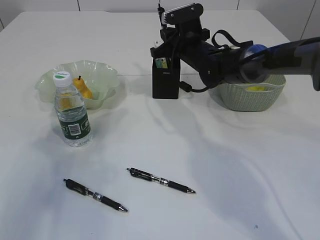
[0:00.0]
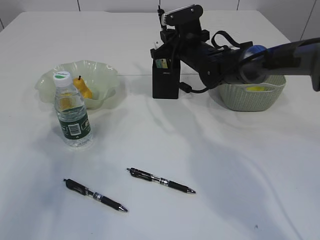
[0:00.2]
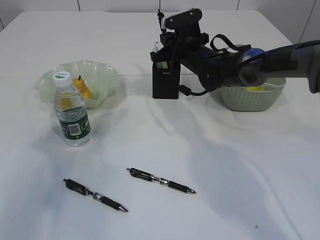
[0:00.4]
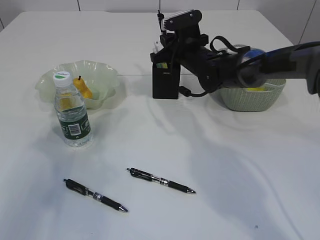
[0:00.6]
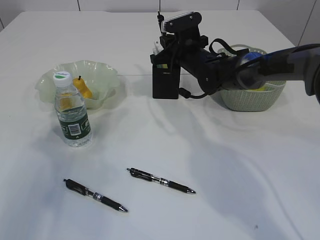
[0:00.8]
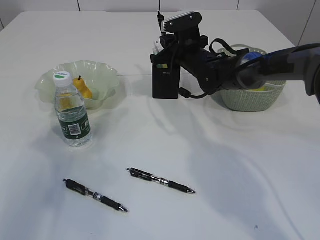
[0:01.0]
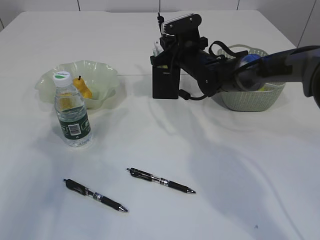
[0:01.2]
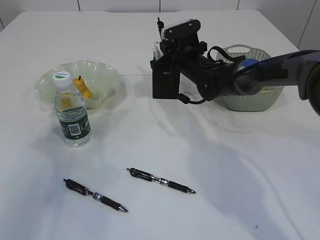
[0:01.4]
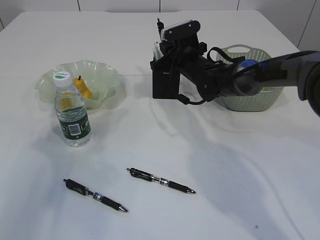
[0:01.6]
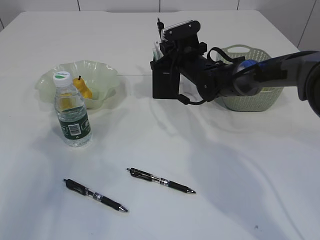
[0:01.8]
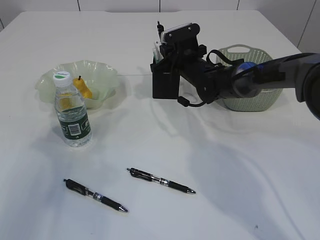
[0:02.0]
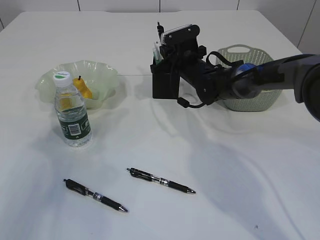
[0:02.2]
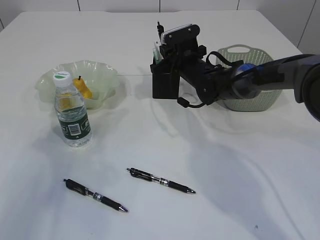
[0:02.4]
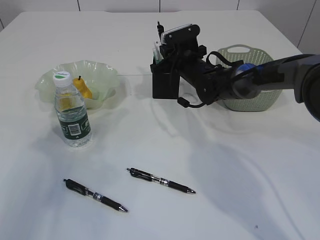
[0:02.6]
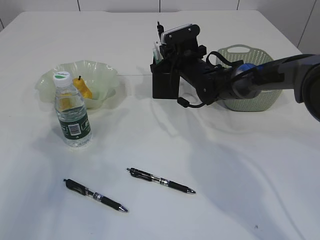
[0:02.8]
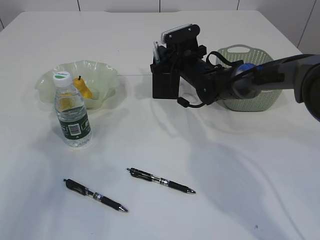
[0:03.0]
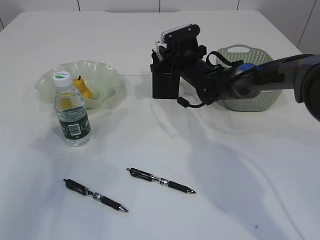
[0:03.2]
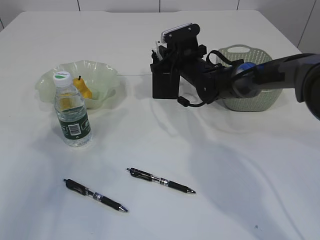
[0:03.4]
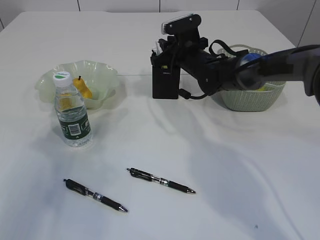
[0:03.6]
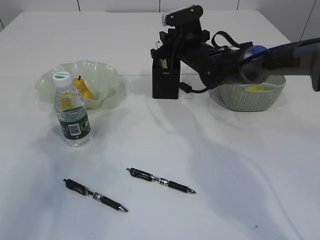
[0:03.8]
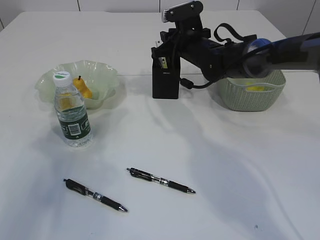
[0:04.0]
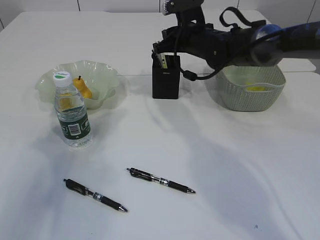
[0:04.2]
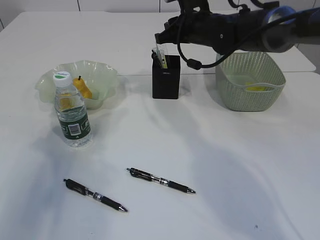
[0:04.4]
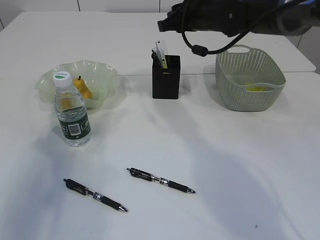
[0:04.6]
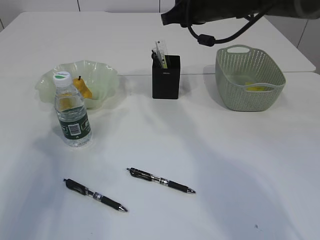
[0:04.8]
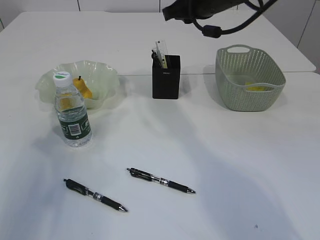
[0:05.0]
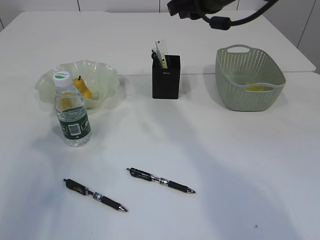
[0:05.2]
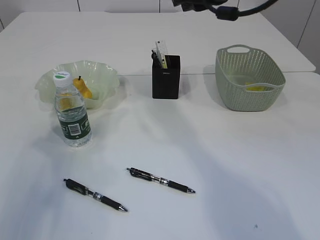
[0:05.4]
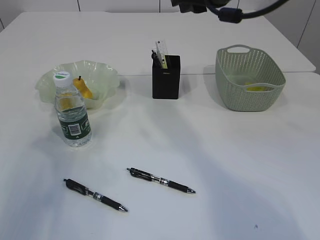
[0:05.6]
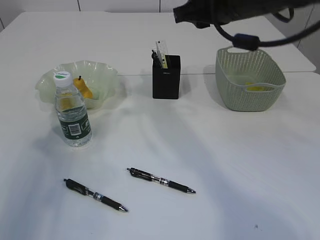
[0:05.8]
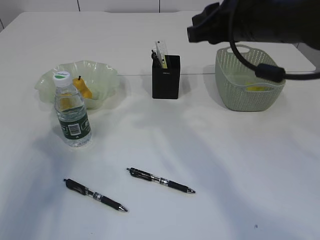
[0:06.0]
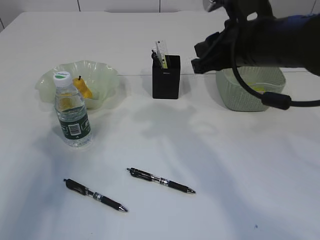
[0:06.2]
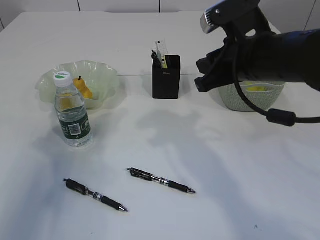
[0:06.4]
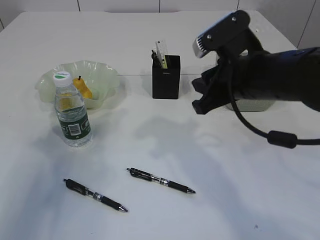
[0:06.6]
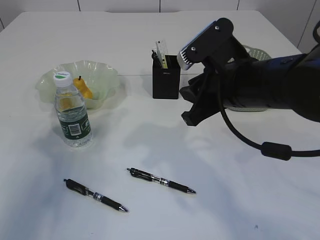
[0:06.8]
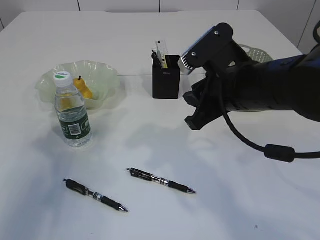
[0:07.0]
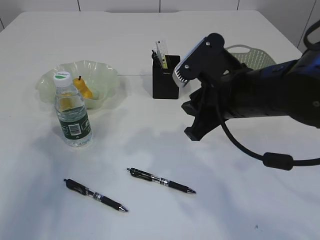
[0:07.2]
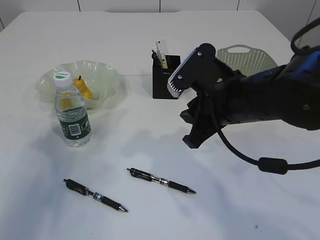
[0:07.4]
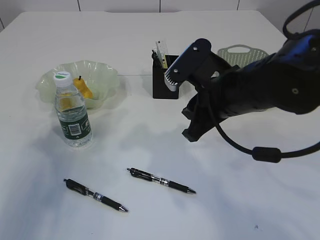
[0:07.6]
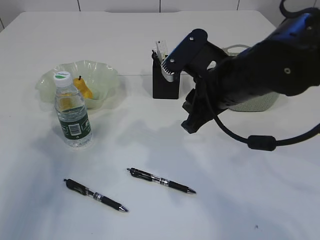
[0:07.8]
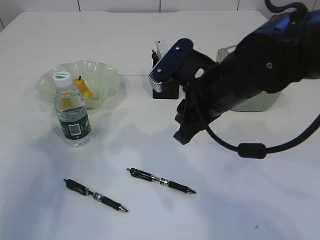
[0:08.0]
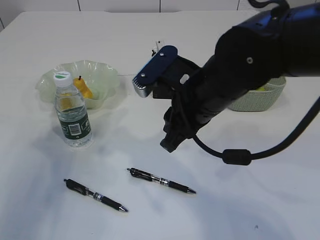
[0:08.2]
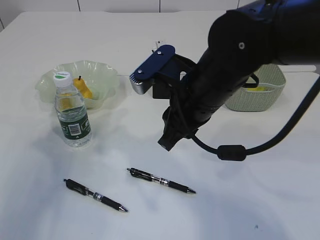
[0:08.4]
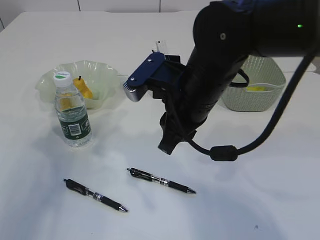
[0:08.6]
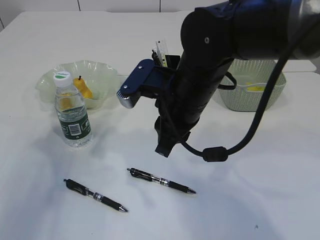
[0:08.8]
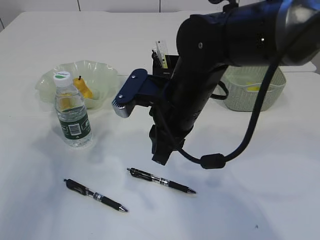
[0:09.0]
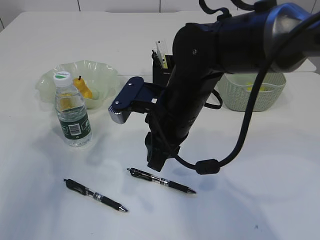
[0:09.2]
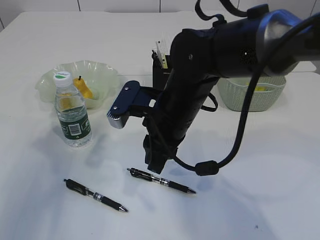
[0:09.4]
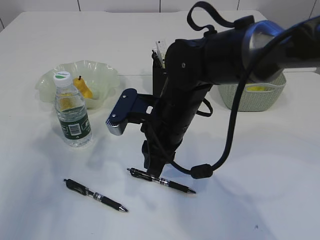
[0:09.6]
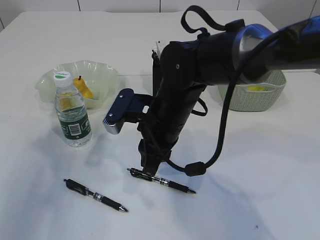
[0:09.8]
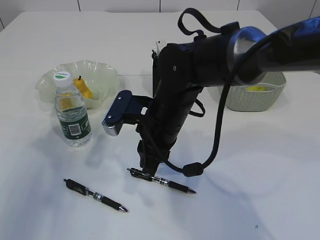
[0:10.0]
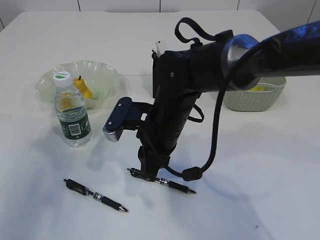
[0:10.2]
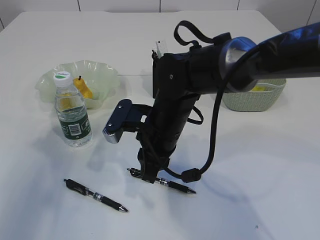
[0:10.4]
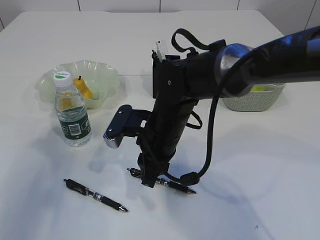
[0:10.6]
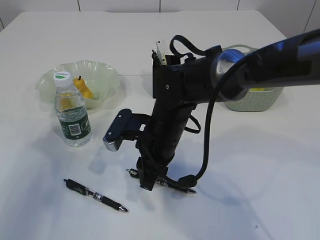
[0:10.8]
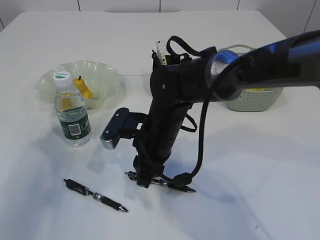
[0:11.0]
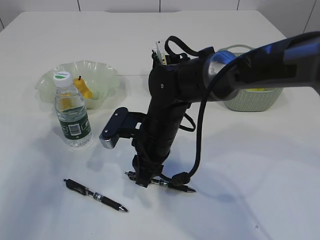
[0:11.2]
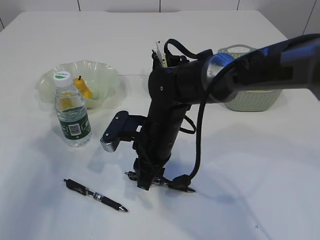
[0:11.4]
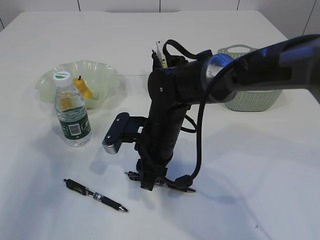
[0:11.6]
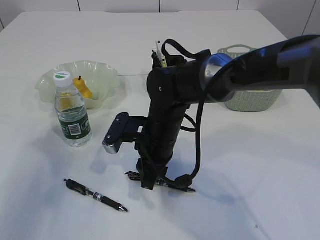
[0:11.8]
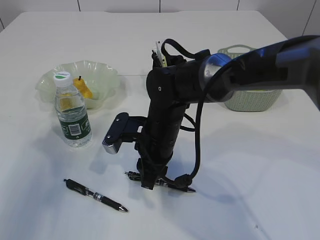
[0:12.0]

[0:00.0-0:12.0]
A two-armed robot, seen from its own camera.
Step, 0:00.0 to 0:04.8: Place the pen into the pen holder.
0:00.0 to 0:01.6: The grippers make only small movements.
0:01.6 to 0:03.0: Both grippers stay put.
0:03.0 to 0:04.4: The right gripper is displaced upward by approximately 10 cm.
0:04.4 to 0:06.0: The right gripper travels backward and upward by some 15 cm.
0:06.0 to 0:07.6: The right gripper travels downward by some 10 cm.
0:07.6 to 0:09.0: The right gripper heads to the left, covering about 5 cm.
0:09.0 to 0:10.4: The right gripper travels downward by some 5 cm.
0:10.4 to 0:12.0: The grippers stay close to where they were, moving slightly.

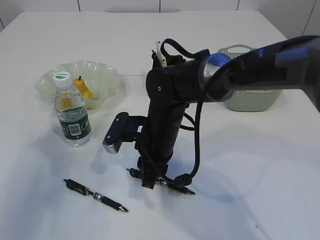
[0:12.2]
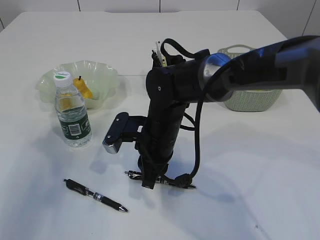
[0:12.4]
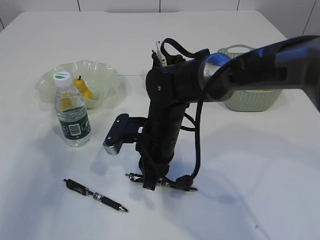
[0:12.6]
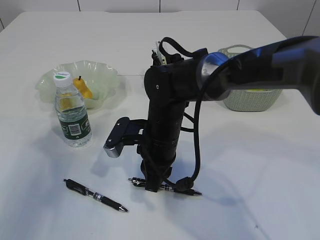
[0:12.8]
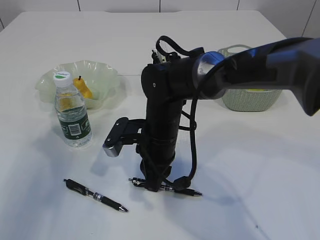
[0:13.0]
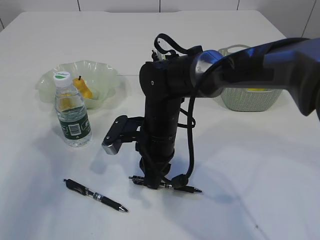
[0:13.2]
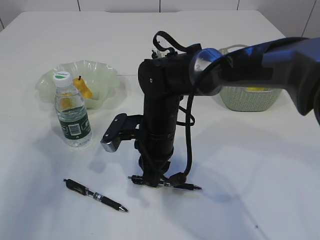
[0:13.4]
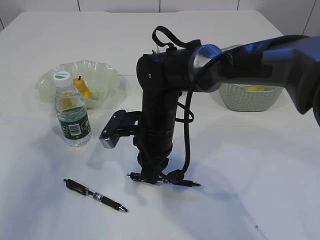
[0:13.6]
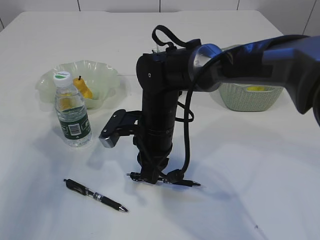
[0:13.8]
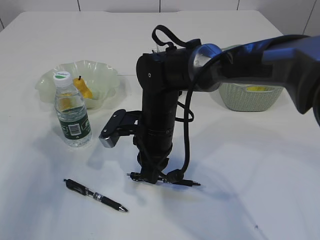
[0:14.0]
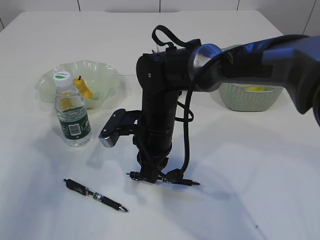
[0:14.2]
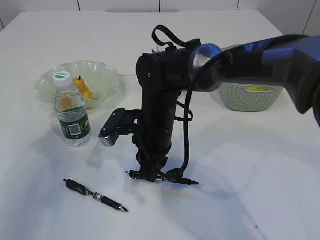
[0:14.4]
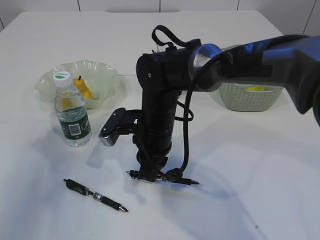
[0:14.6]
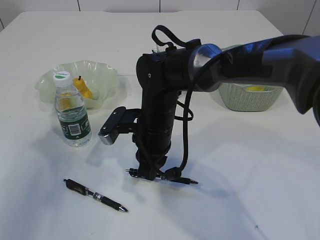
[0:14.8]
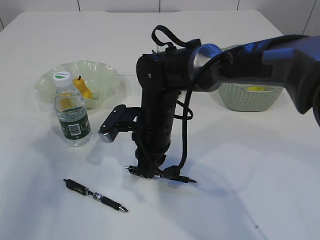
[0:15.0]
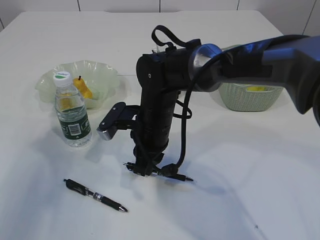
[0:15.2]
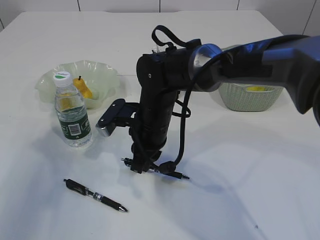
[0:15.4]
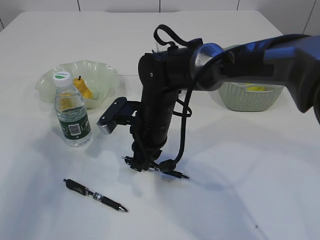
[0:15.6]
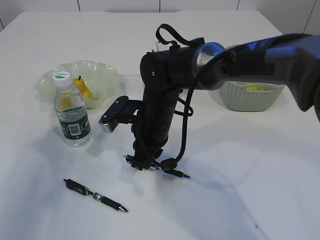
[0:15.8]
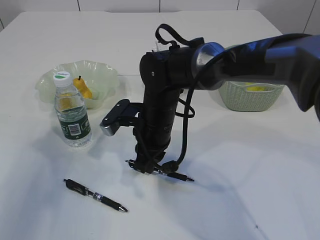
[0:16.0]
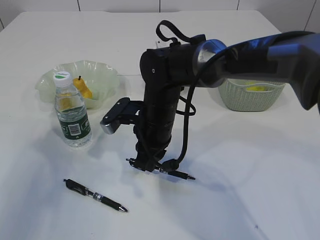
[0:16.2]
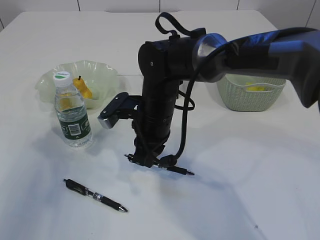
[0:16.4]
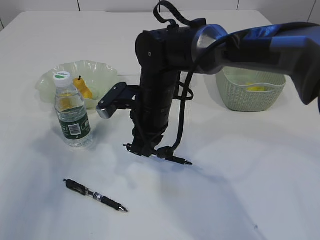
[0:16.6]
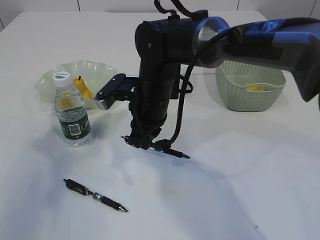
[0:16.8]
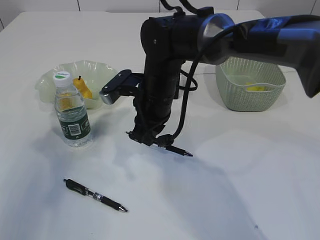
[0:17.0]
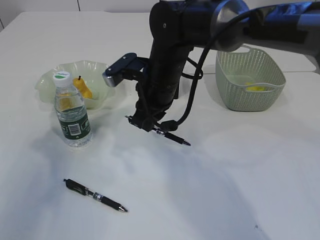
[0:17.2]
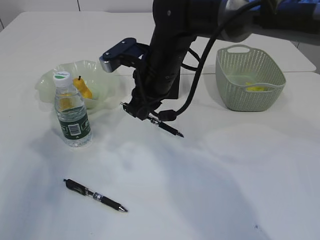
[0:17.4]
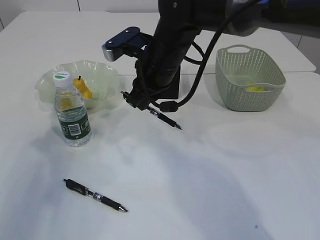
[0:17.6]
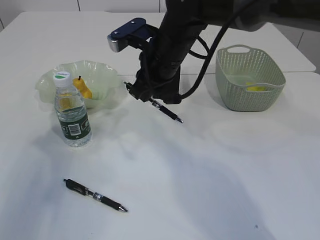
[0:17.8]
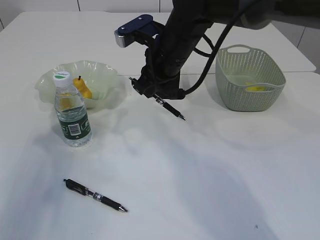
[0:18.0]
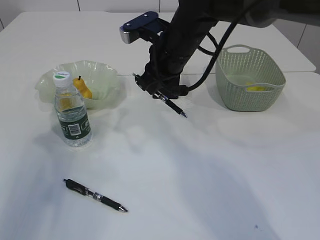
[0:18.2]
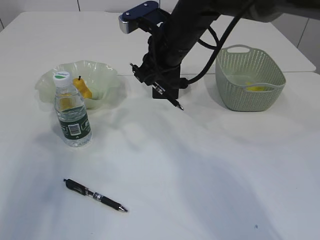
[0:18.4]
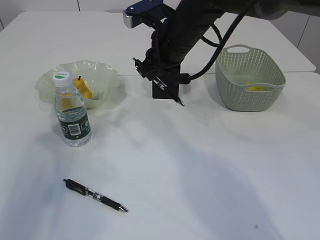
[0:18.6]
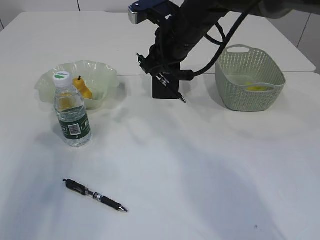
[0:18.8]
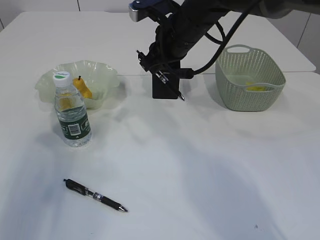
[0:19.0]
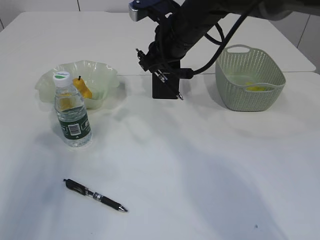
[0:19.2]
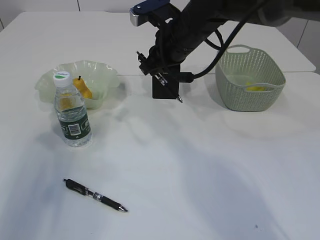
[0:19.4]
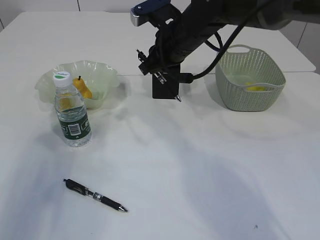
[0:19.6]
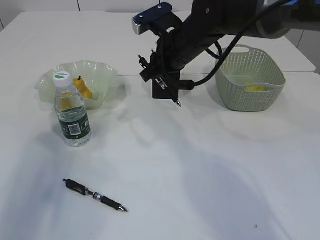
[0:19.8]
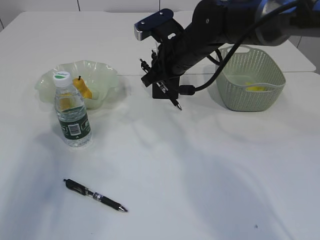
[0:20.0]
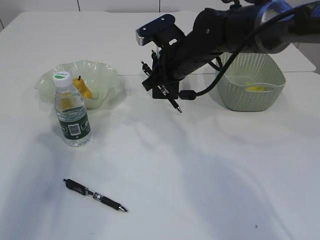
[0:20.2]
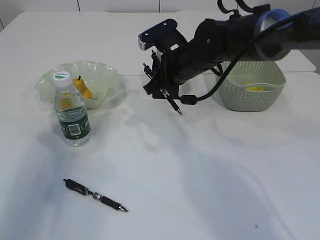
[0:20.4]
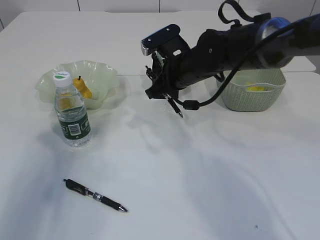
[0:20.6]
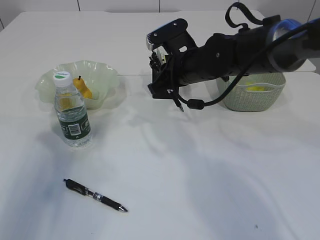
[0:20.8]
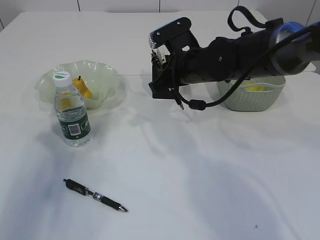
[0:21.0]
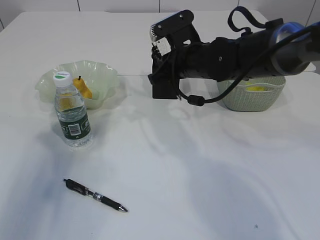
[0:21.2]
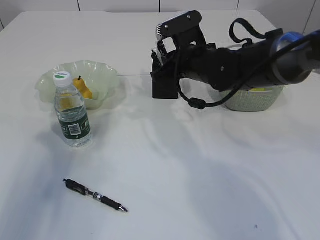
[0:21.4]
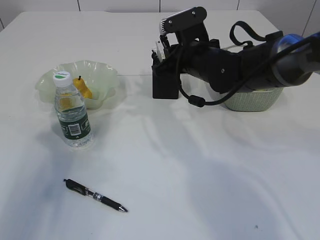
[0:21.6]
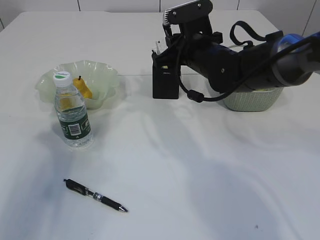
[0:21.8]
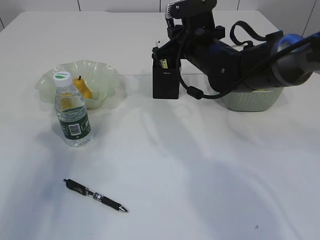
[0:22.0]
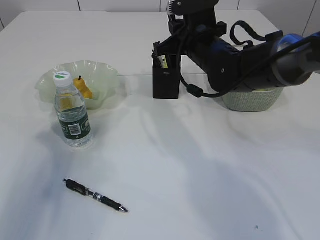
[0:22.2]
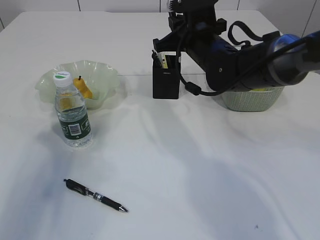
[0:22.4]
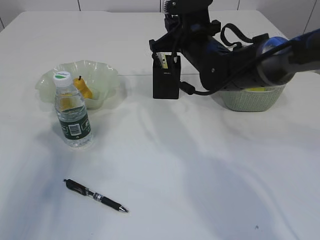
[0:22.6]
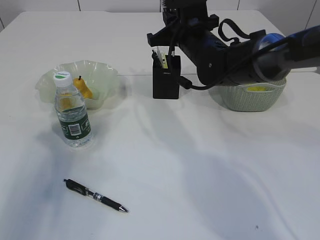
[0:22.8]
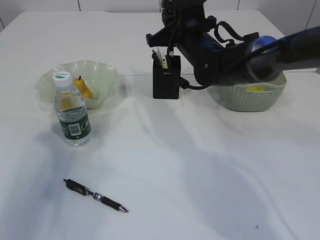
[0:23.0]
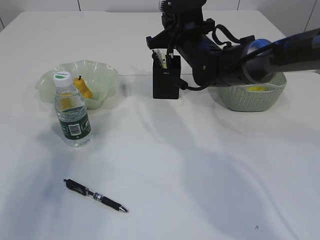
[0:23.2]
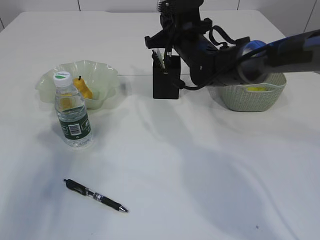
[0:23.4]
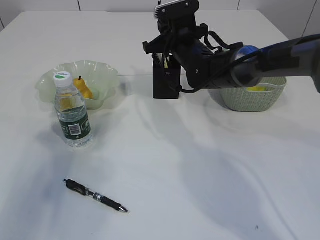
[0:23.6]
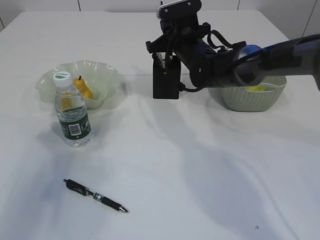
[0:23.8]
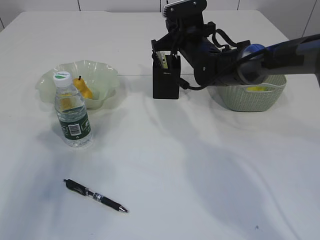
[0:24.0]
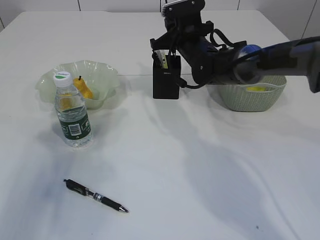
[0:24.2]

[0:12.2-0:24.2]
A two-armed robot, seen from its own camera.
Step, 0:12.2 to 0:16.6: Pick up the pen with right arm.
0:12.2 to 0:16.6: The grippers stay close to where they were, moving slightly.
0:16.6 to 0:18.2: The right gripper travels upward by about 10 cm.
0:18.2 to 0:19.8: The grippers make only small movements.
0:22.6 to 0:24.2: The right gripper heads forward, covering roughly 5 cm.
